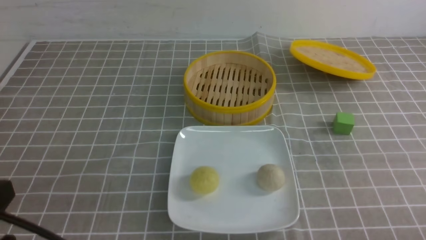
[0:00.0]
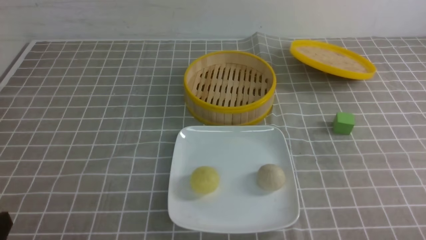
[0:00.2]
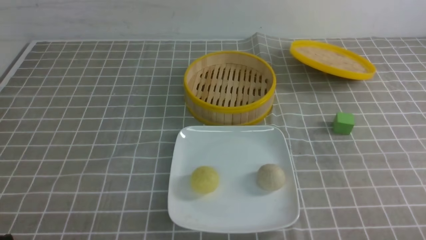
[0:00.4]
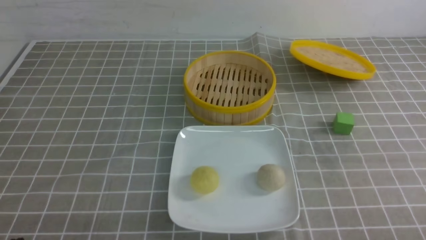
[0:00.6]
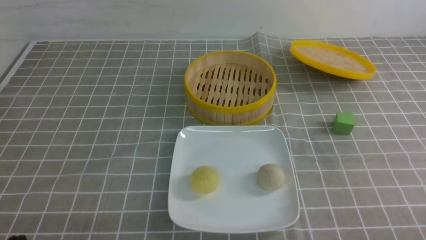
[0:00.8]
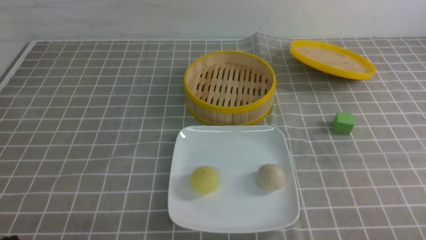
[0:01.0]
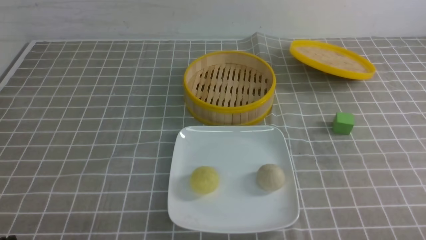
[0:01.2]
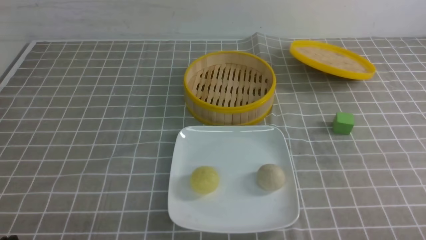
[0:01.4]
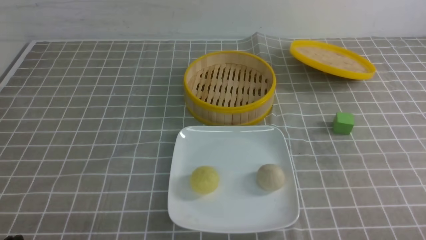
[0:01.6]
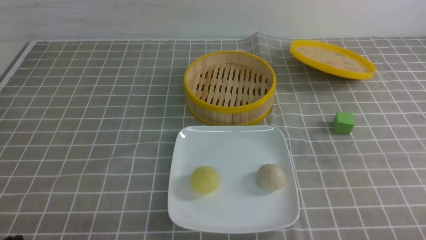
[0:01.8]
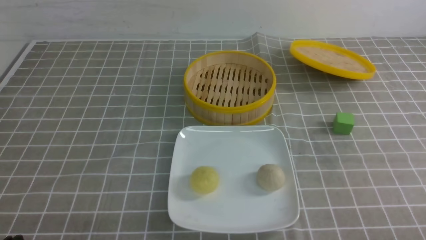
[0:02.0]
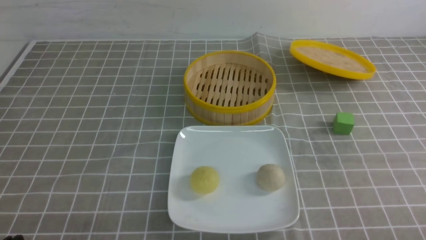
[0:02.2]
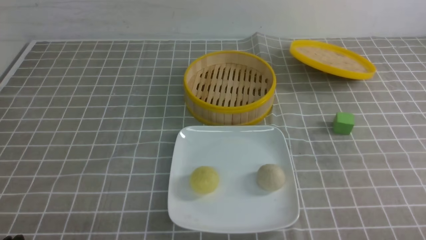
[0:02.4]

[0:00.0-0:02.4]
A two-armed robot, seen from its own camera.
0:00.0 to 0:01.2: The left gripper goes approximately 15 cm downward.
0:01.2 to 0:02.4: Neither gripper changes place.

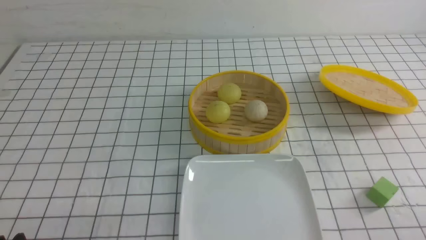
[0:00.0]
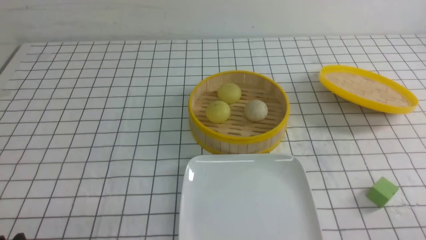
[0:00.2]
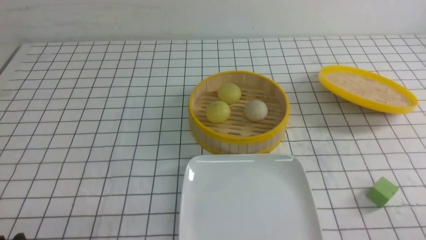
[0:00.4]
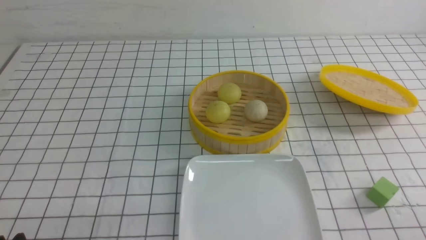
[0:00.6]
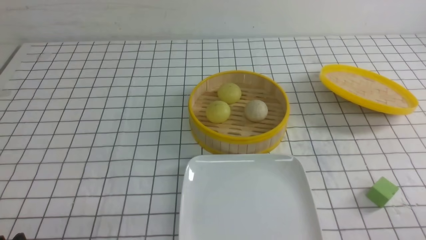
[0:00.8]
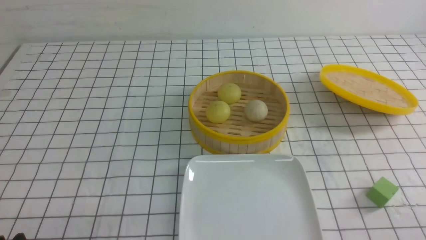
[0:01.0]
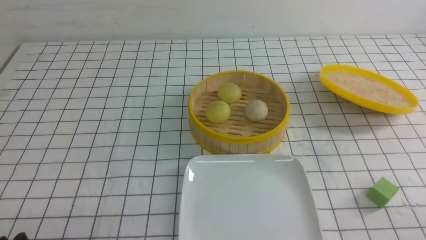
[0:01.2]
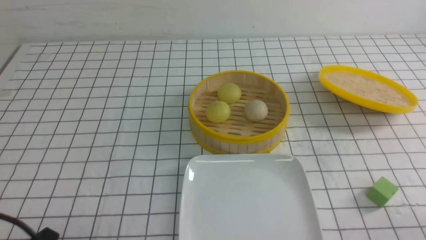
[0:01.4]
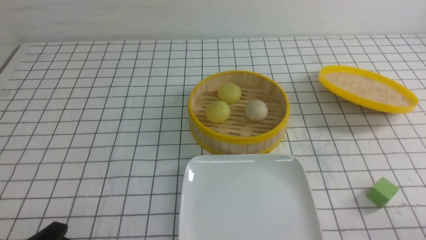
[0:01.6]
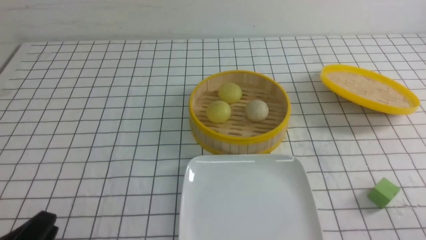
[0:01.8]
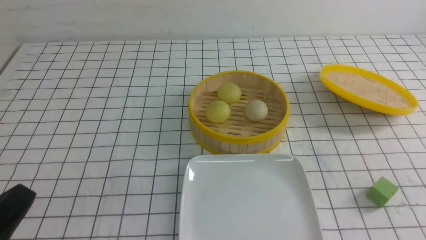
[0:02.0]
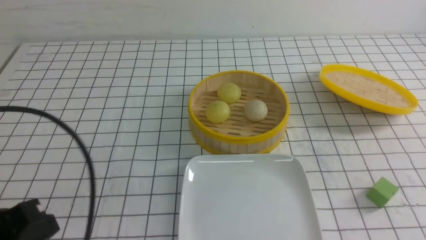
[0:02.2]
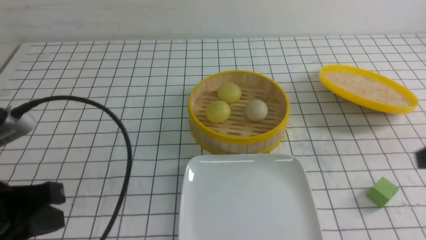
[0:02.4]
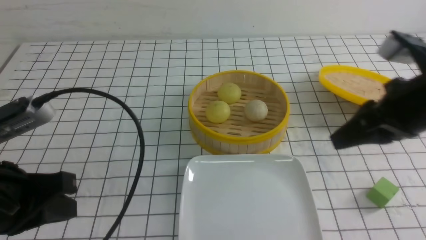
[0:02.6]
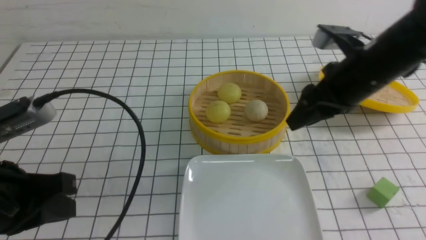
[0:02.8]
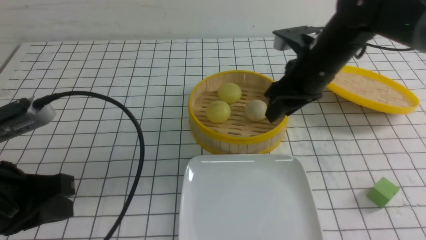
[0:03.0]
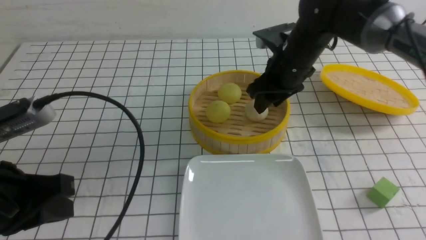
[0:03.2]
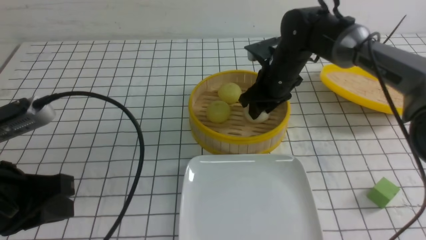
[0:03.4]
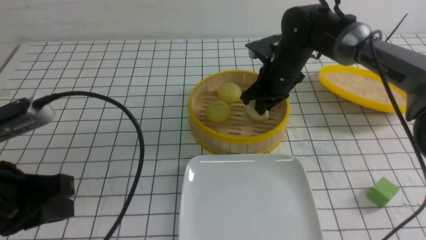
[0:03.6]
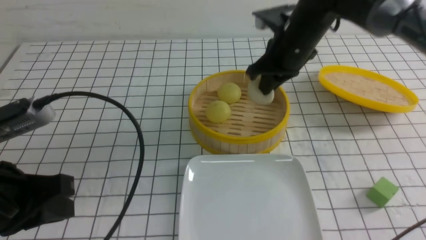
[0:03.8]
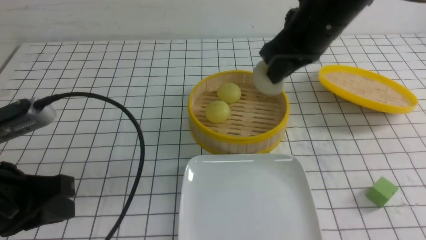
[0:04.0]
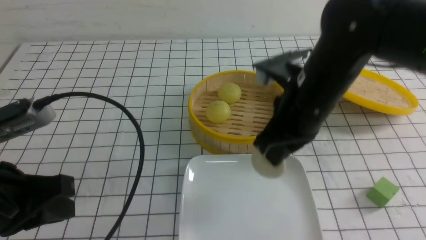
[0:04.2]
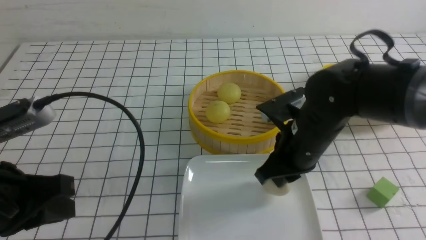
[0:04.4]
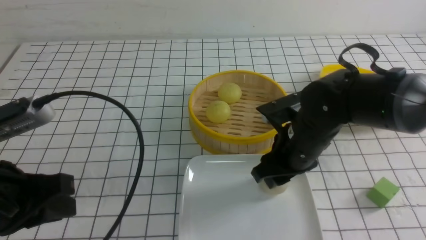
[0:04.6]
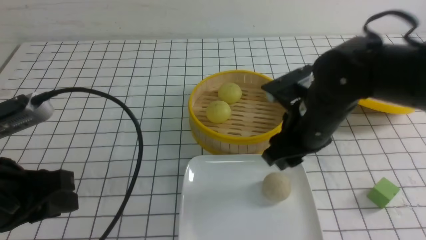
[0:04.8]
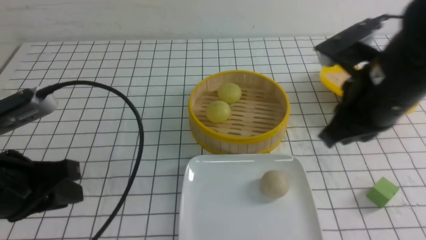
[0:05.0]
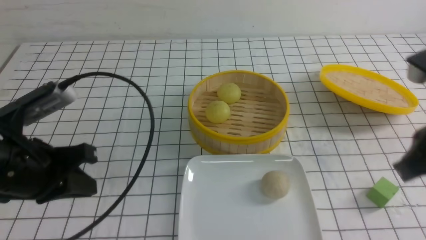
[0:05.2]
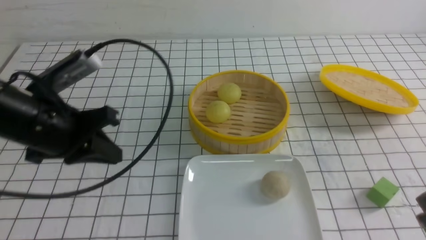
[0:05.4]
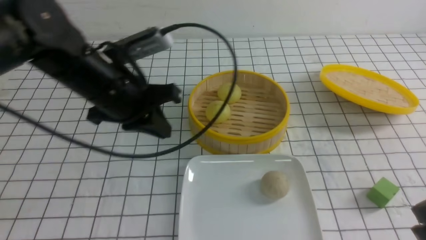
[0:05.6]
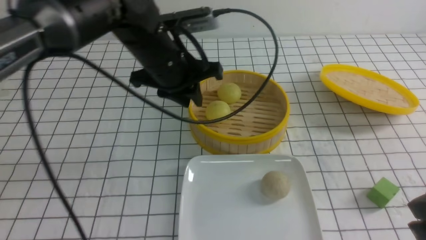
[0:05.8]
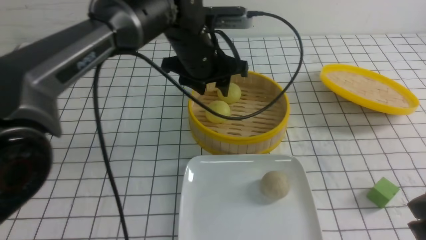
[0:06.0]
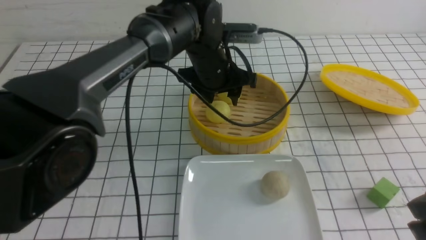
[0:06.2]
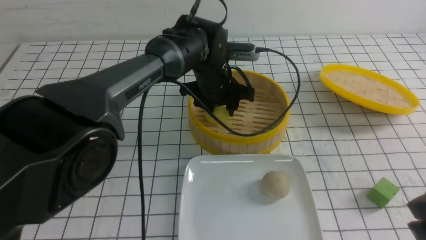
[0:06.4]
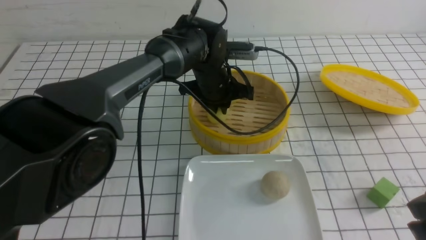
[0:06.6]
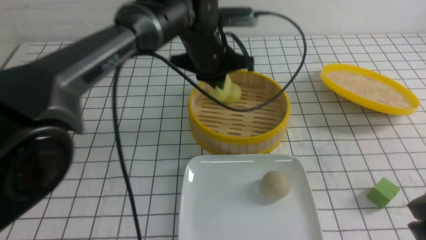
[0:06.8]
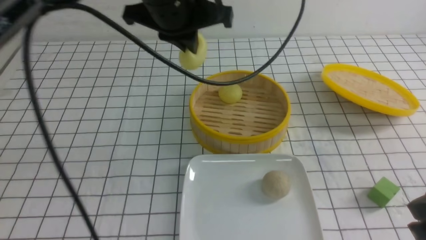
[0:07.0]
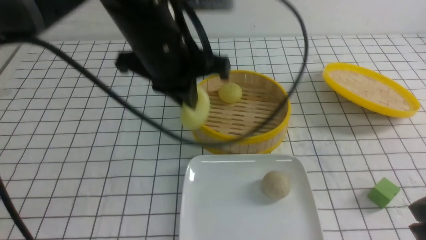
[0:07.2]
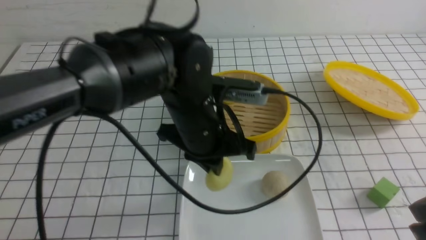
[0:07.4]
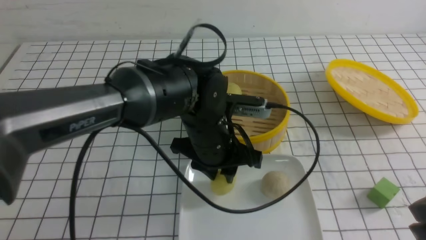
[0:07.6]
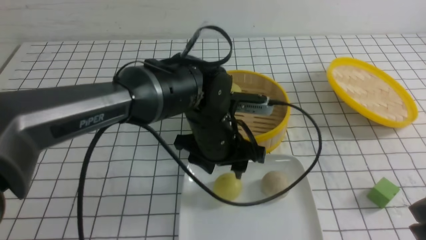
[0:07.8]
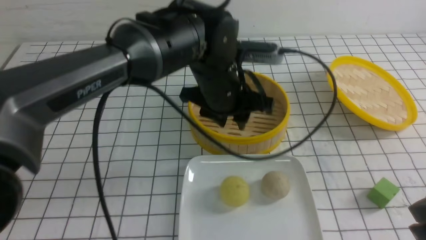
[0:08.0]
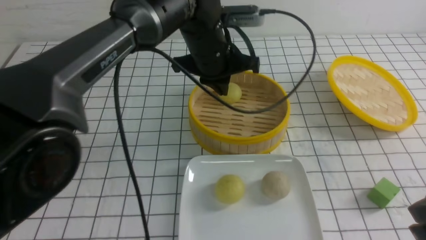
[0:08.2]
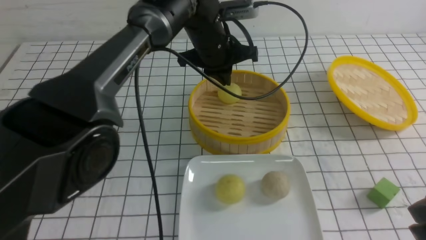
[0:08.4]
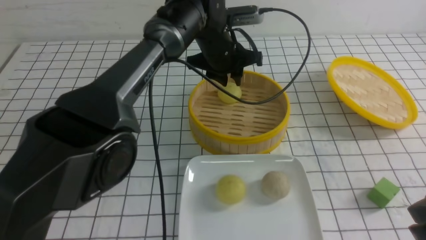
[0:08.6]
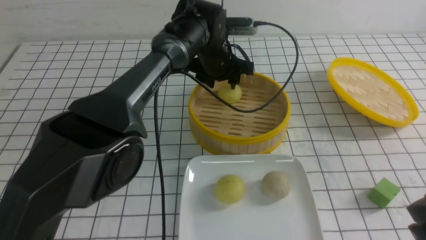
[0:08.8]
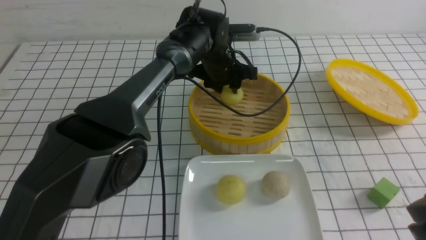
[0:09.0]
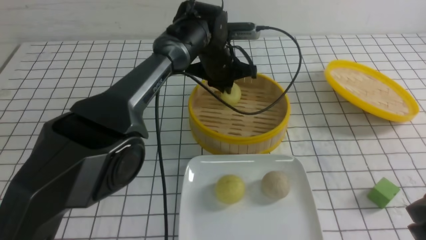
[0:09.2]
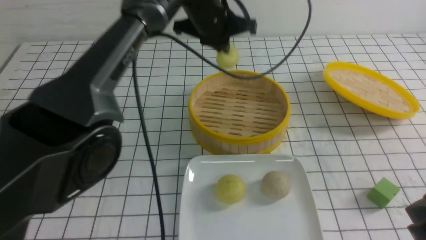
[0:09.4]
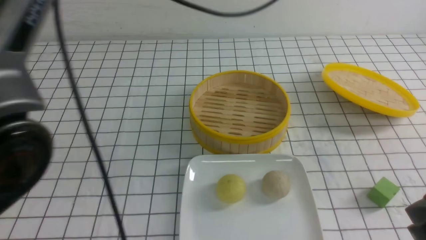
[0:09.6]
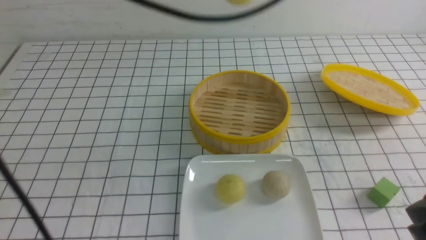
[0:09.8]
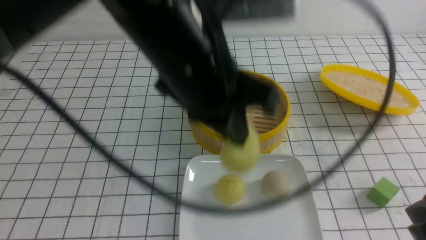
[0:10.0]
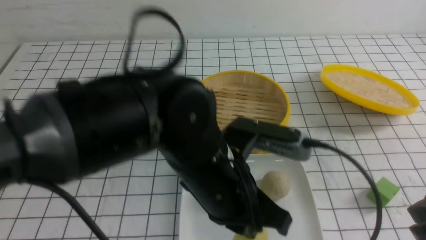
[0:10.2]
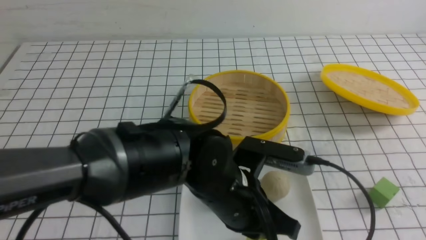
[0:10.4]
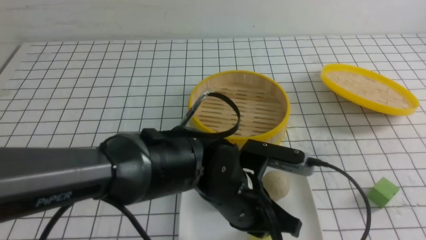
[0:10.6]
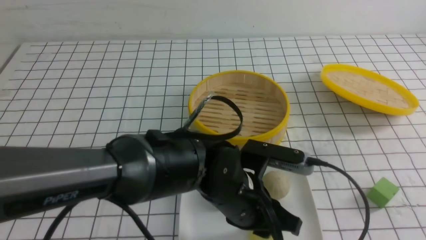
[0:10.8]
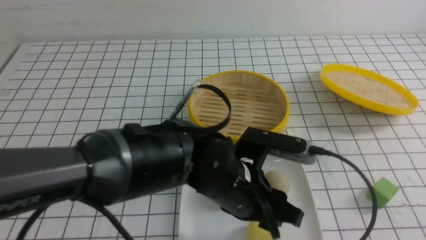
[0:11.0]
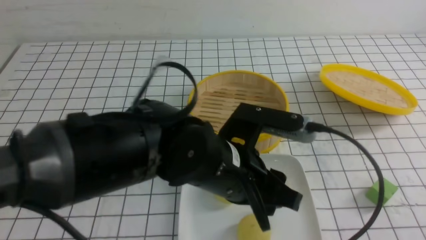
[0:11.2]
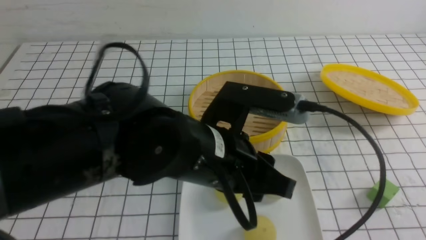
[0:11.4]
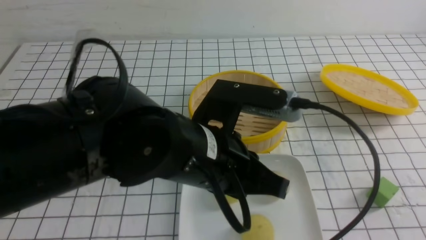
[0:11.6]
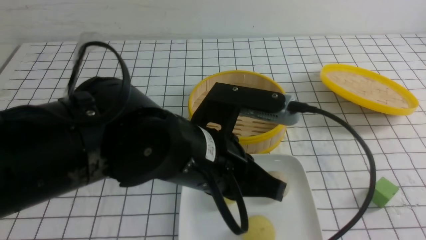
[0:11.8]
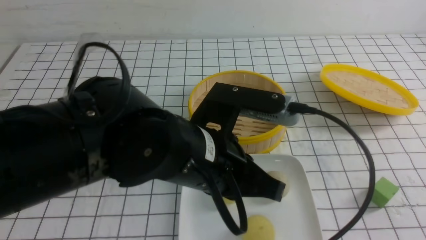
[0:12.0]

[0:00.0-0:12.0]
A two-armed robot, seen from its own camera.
Step, 0:00.0 to 0:03.6: use the right arm to grab the steamed stuffed bun that is closest to it.
Step, 0:03.8 to 0:04.8: use the right arm to put the steamed stuffed bun into the plate.
Step, 0:05.0 to 0:06.8: use the left arm to grab the steamed stuffed bun that is closest to it.
Step, 0:07.0 to 0:07.8: use the left arm to put the steamed stuffed bun into the plate.
Step, 0:08.0 to 0:09.2: use the left arm to grab the steamed stuffed bun that is closest to it.
Step, 0:09.4 to 0:11.2: use the left arm to put the steamed stuffed bun into the plate.
0:01.6 to 0:03.0: The left gripper heads upward and forward, covering roughly 15 cm, and closes. The right gripper travels forward and to the left by about 35 cm, and closes, then opens again.
0:03.0 to 0:04.4: The right gripper travels backward and downward by about 10 cm, and closes up.
0:04.4 to 0:06.0: The left gripper travels forward and to the right by approximately 30 cm, and opens up. Meanwhile the right gripper travels backward, to the right and upward by roughly 20 cm, and closes.
0:06.0 to 0:07.6: The left gripper goes approximately 10 cm backward and downward, and closes, then reopens.
0:07.6 to 0:09.0: The left gripper goes some 20 cm forward, and closes, then reopens.
0:09.0 to 0:10.4: The left gripper travels backward by some 30 cm, and closes up.
0:10.4 to 0:12.0: The left gripper shifts some 10 cm upward, and opens and closes again. Meanwhile the right gripper heads backward, covering approximately 5 cm.

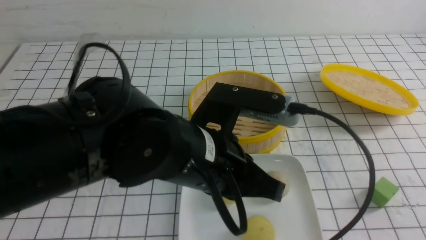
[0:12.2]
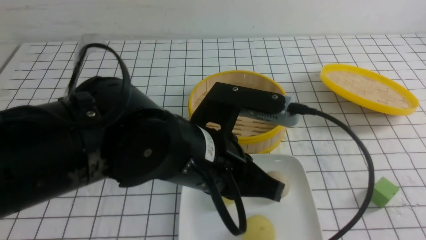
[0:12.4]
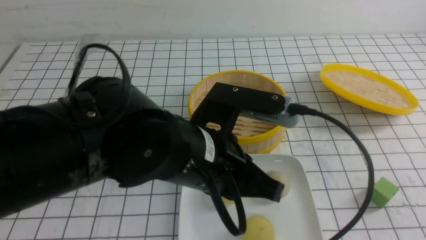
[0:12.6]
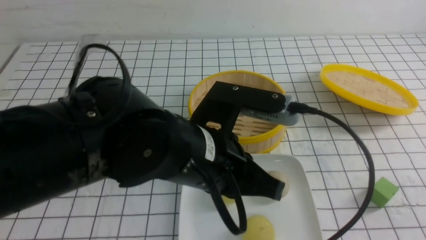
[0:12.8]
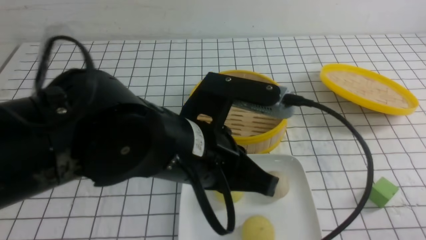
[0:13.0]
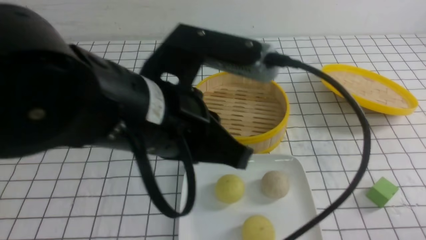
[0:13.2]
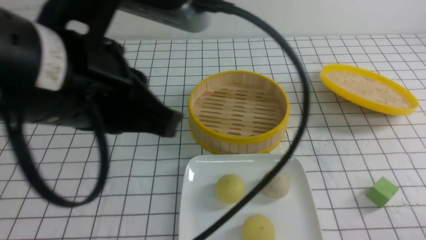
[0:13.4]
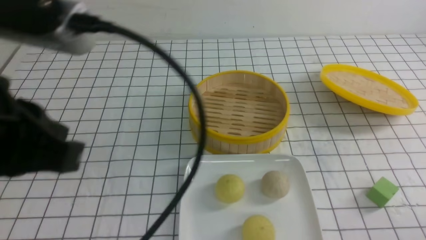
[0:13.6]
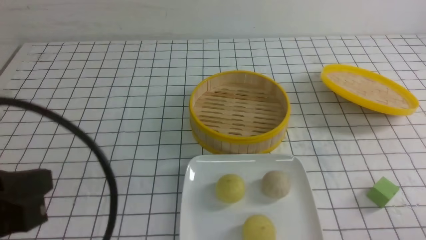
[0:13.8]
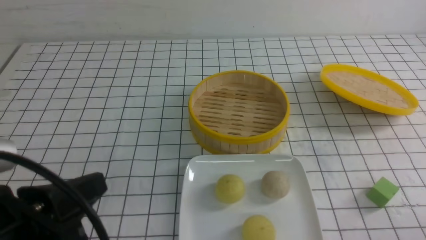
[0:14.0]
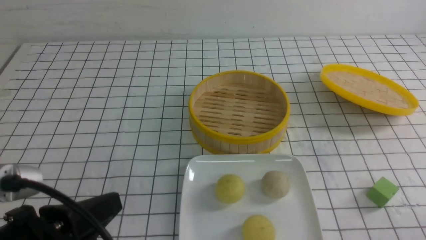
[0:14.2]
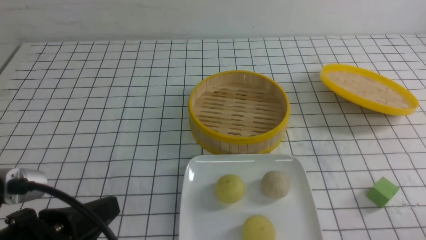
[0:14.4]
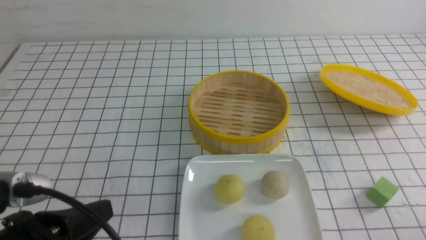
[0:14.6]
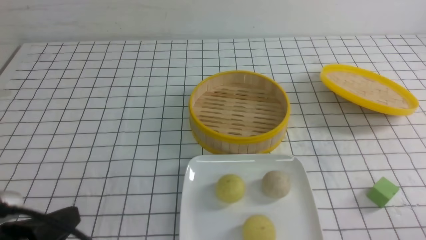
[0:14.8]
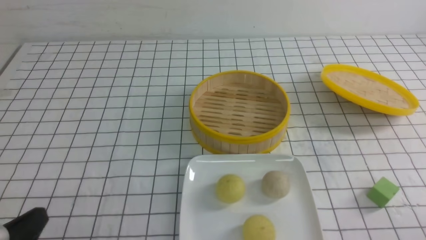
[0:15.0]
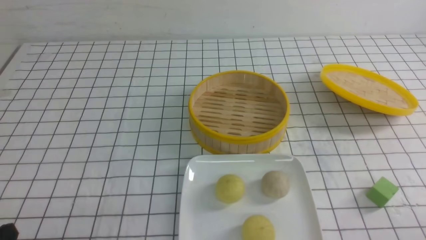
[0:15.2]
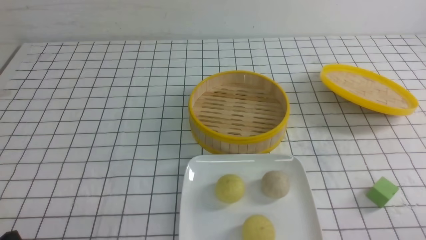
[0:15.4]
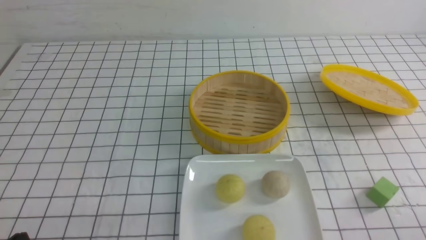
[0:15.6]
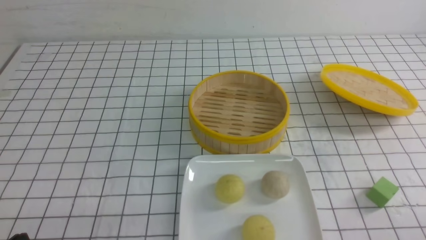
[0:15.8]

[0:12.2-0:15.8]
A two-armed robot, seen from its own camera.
0:12.2 to 0:14.0: The left gripper shifts approximately 20 cm to the left and backward. The right gripper heads downward, covering about 10 cm.
0:14.0 to 0:15.8: The left gripper goes roughly 15 cm downward and to the left.
